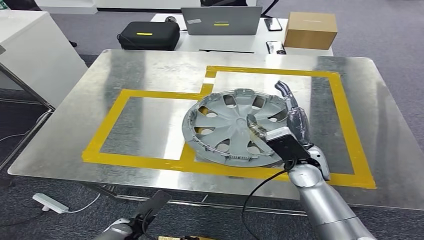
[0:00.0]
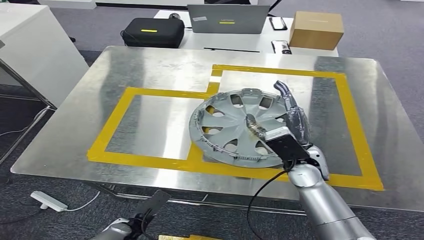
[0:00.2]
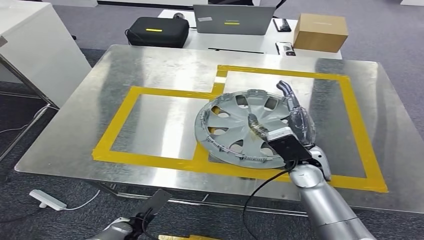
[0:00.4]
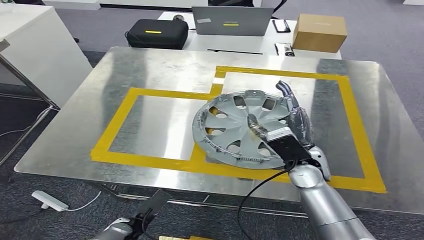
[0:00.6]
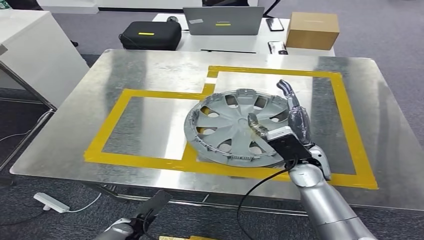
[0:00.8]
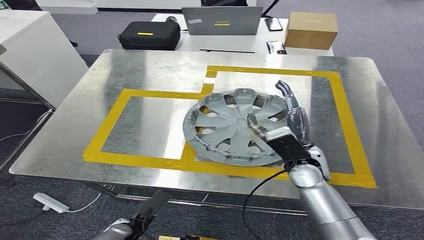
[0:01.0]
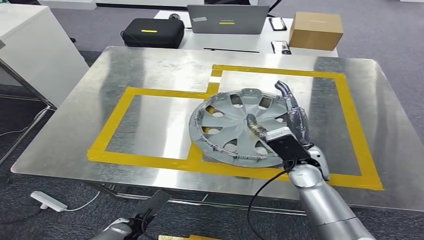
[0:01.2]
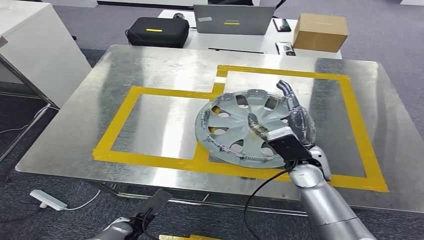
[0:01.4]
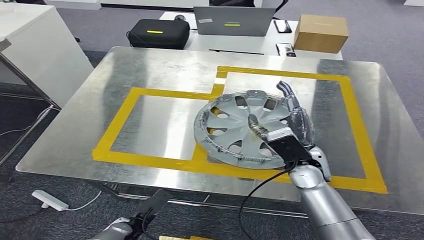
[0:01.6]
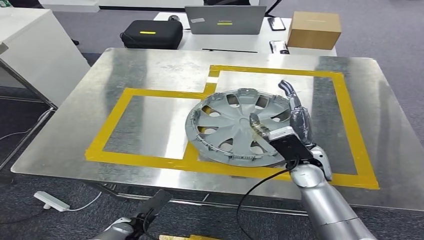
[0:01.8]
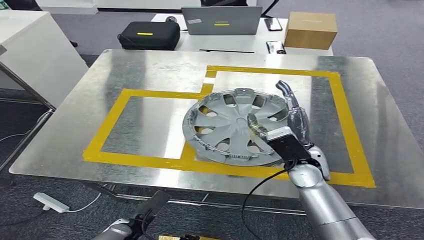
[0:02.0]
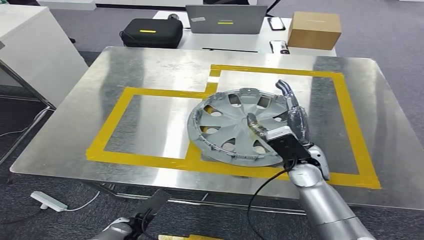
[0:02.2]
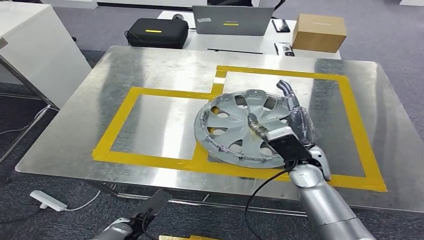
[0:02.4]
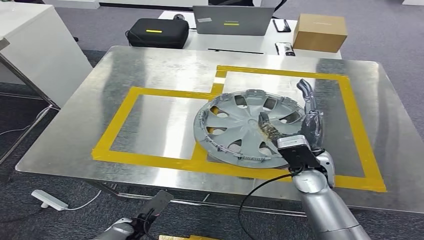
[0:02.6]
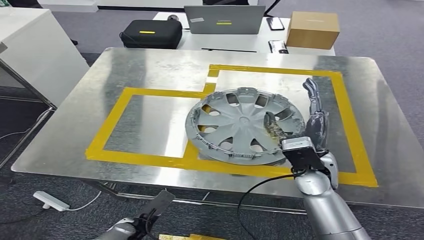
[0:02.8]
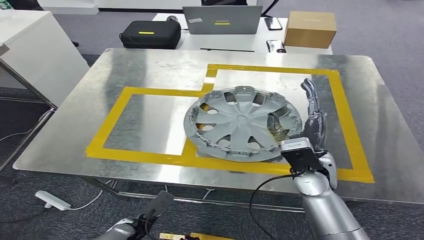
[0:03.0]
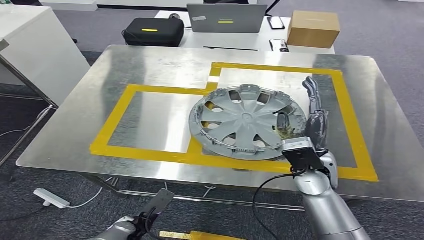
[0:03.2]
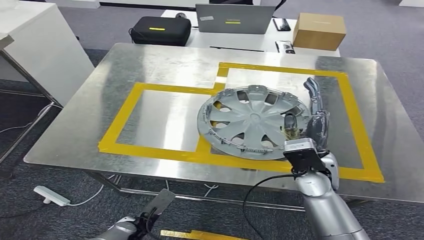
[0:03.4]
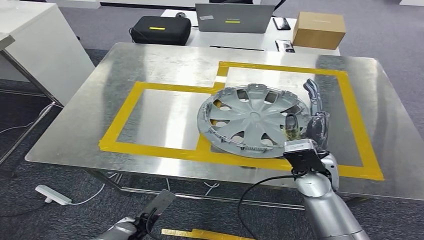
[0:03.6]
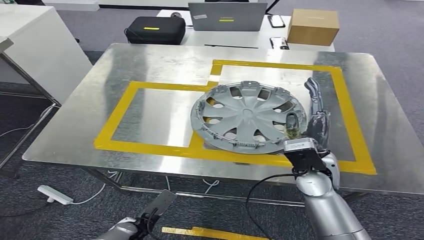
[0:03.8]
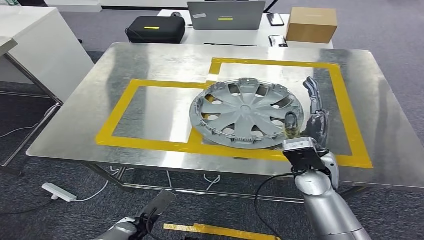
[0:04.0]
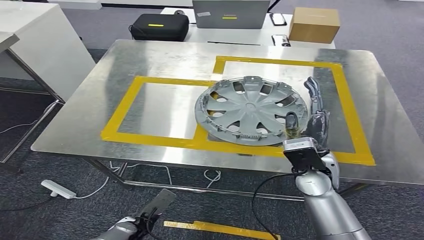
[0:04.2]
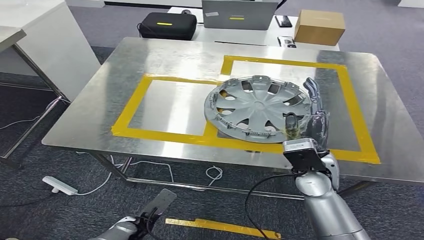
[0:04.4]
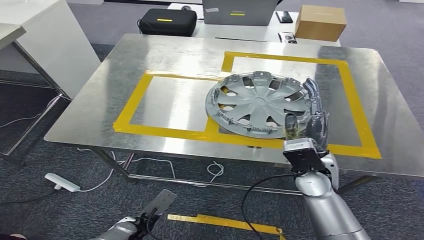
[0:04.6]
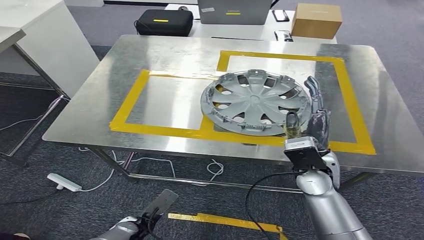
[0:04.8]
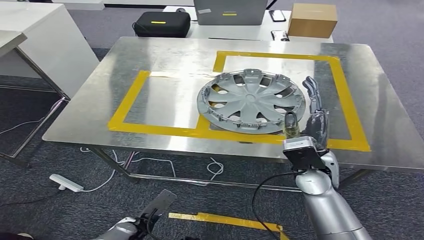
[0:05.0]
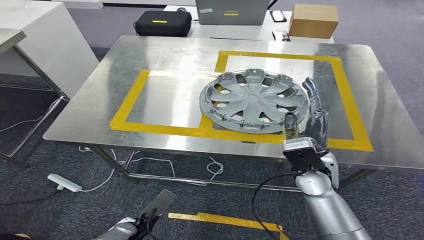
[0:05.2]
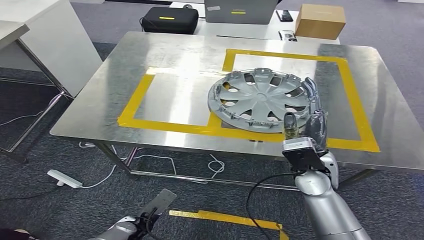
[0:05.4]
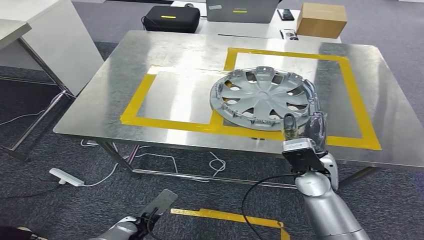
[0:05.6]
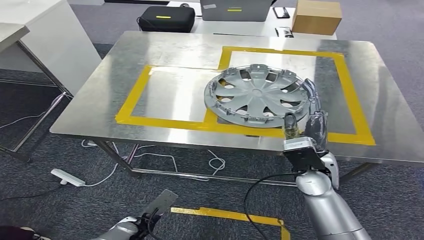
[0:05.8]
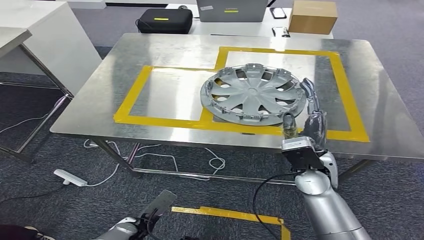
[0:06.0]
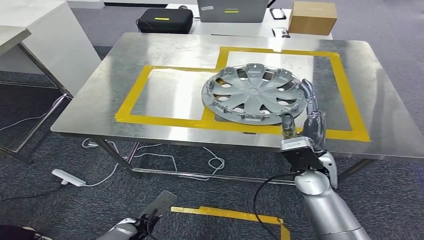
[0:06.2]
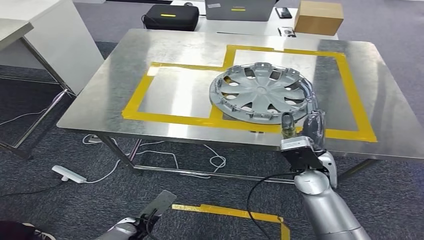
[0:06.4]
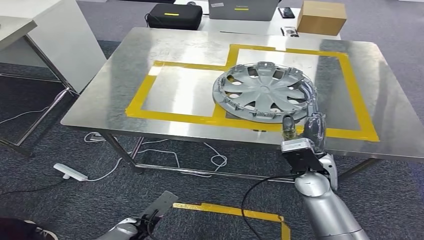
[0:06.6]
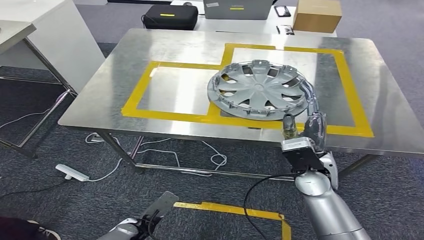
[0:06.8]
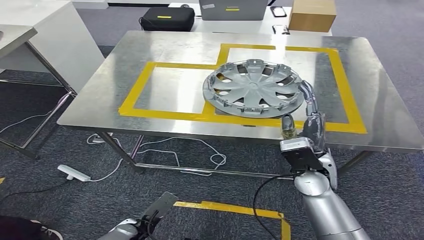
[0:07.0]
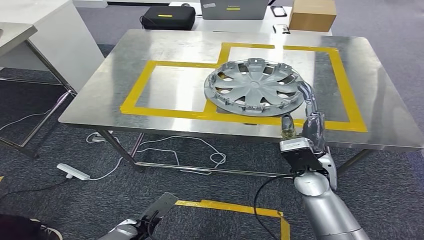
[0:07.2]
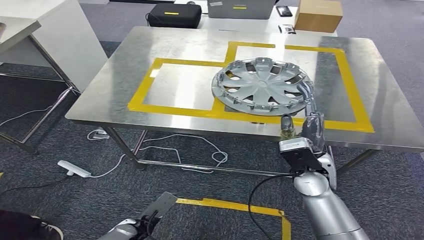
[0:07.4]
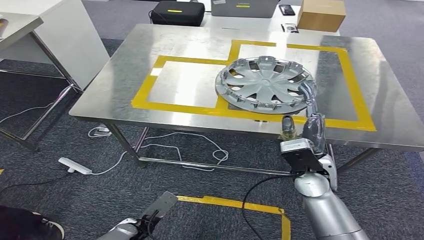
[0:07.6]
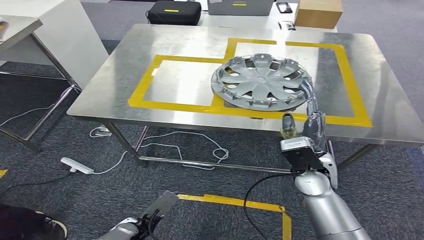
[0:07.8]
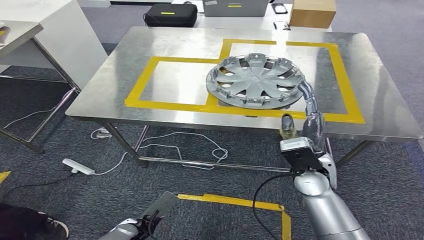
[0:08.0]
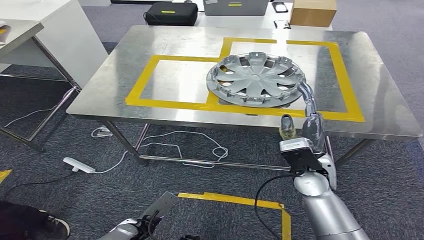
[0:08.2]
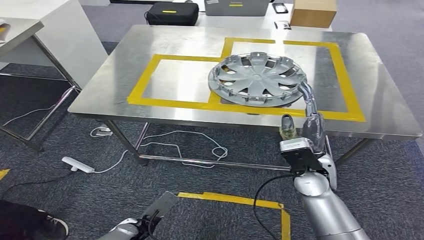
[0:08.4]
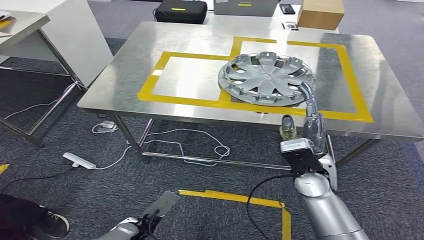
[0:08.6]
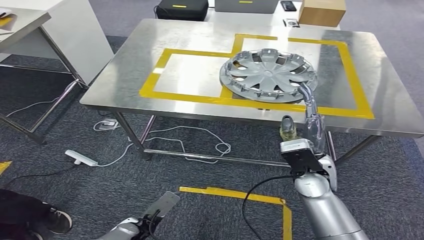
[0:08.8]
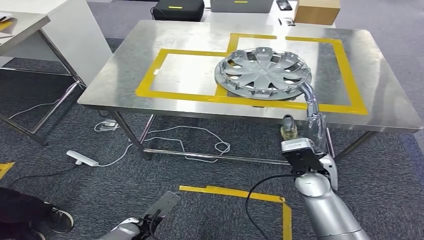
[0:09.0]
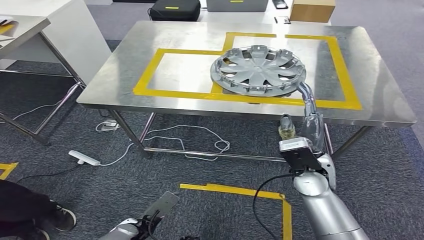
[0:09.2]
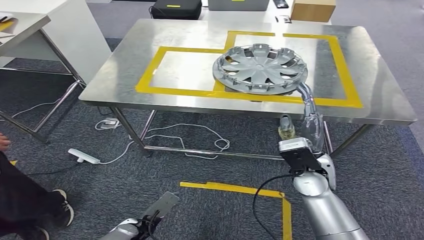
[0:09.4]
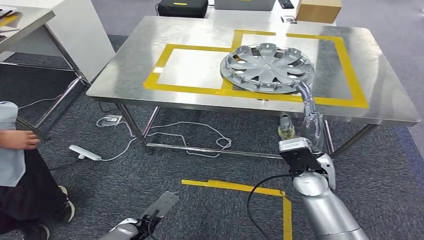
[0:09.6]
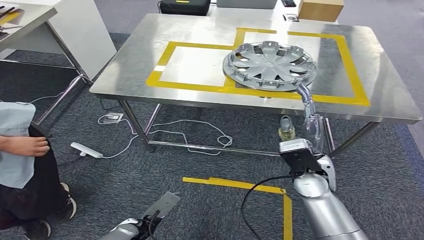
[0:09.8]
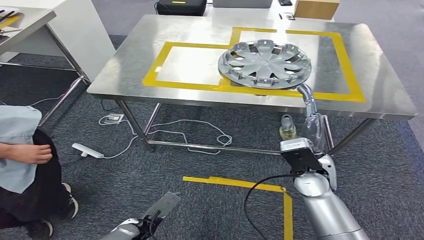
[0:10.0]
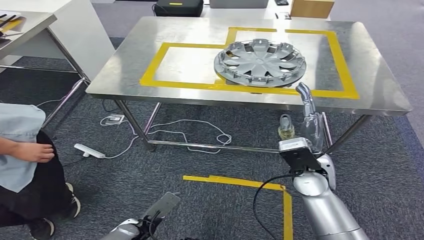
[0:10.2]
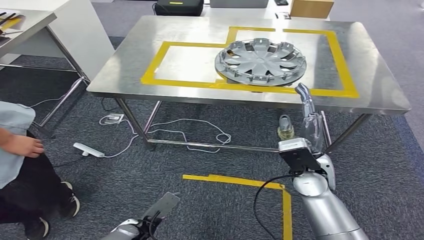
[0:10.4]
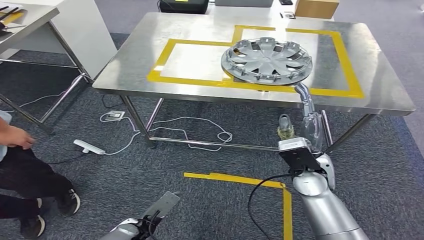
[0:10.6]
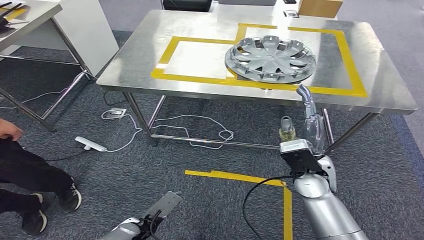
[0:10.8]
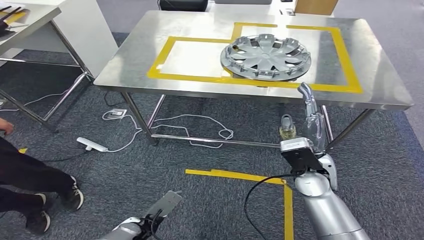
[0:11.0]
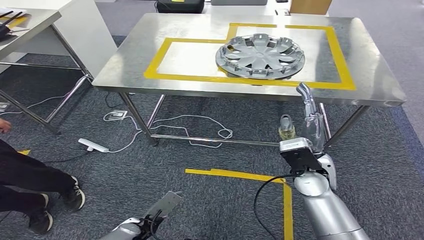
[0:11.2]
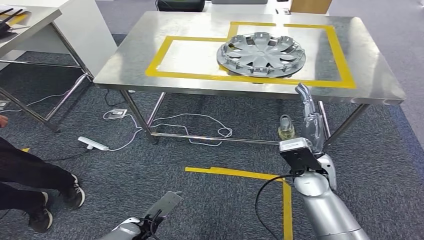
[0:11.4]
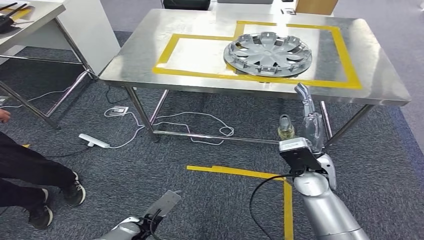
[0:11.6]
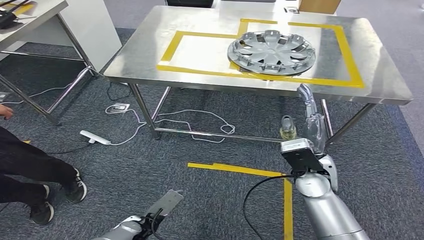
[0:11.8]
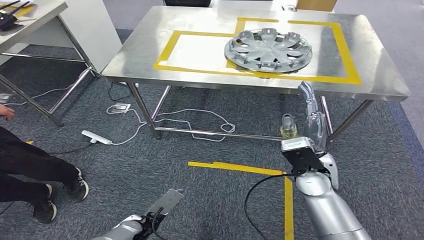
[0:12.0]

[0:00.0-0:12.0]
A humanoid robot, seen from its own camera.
Step, 0:00.0 to 0:02.0: Insert the small parts into the corresponding holes on the workbench.

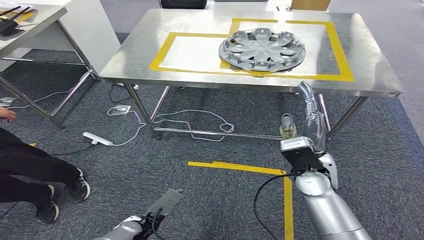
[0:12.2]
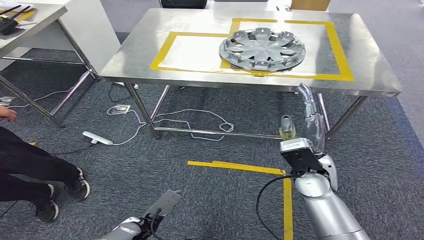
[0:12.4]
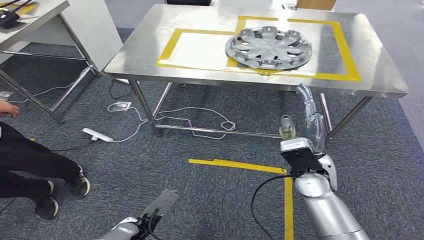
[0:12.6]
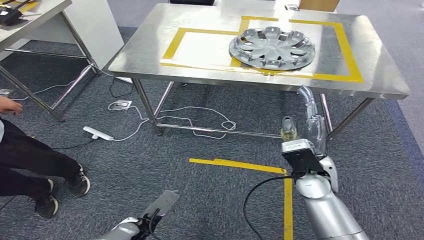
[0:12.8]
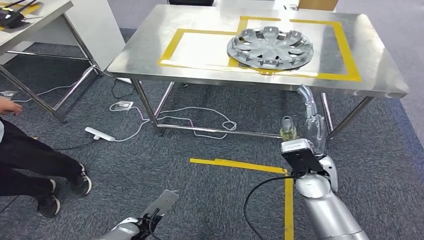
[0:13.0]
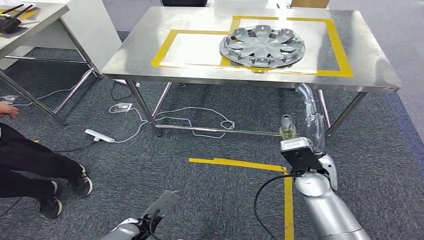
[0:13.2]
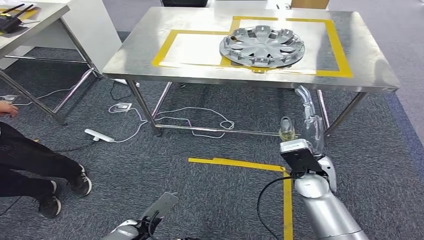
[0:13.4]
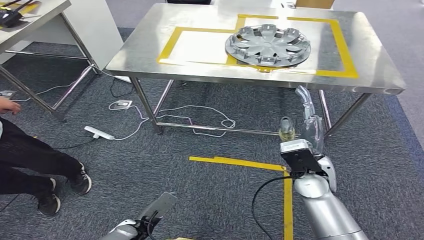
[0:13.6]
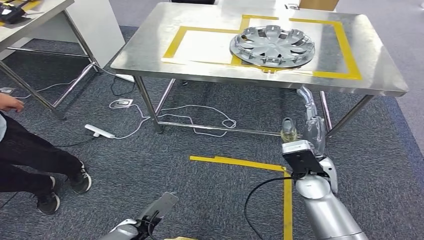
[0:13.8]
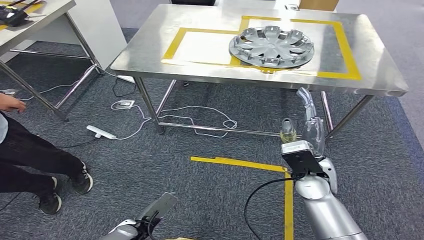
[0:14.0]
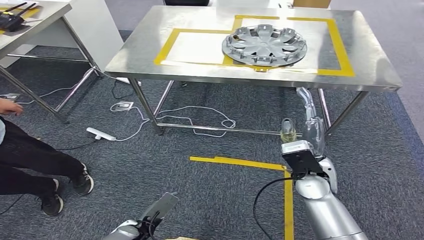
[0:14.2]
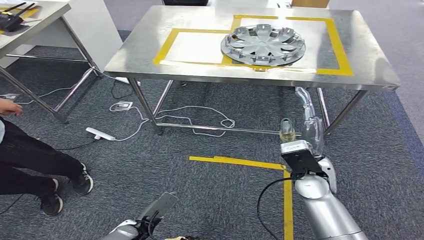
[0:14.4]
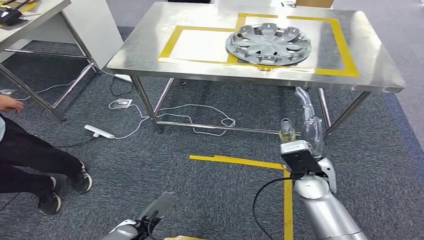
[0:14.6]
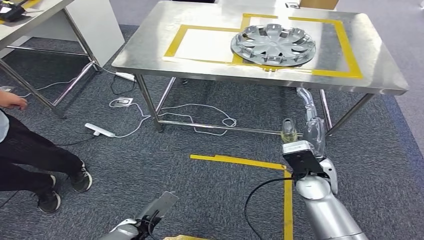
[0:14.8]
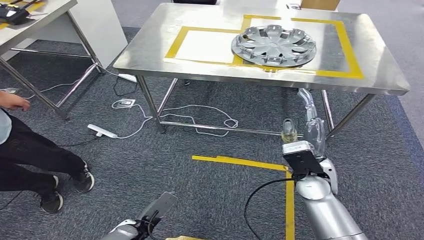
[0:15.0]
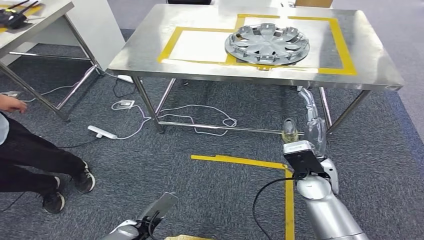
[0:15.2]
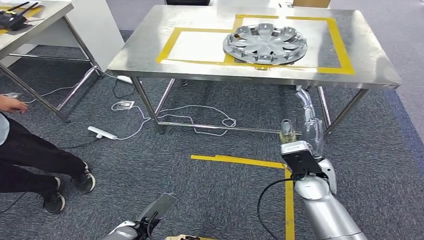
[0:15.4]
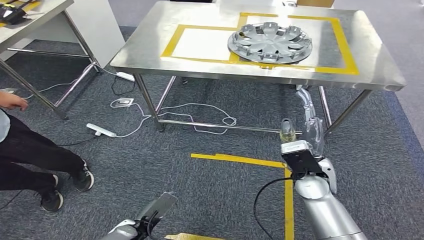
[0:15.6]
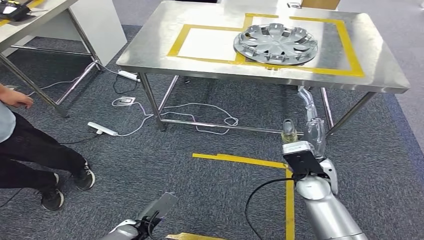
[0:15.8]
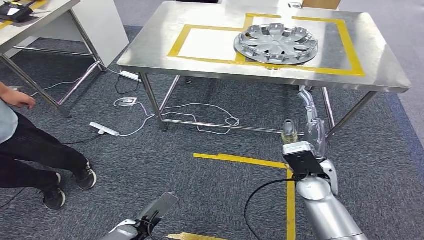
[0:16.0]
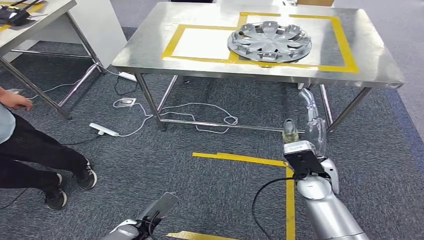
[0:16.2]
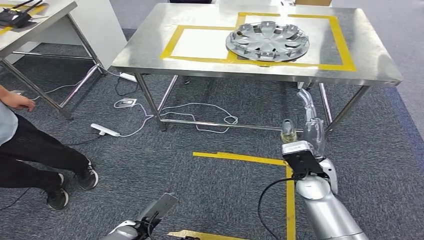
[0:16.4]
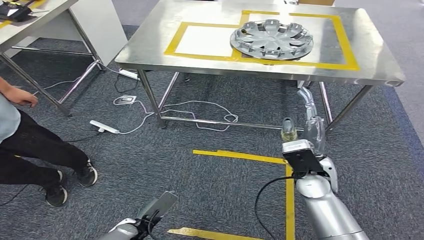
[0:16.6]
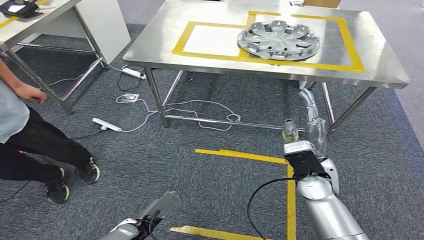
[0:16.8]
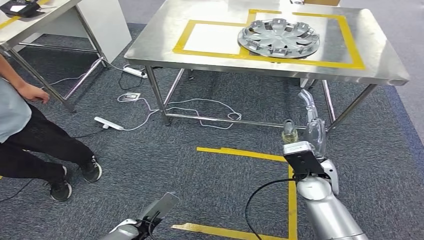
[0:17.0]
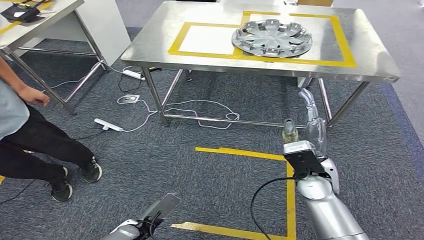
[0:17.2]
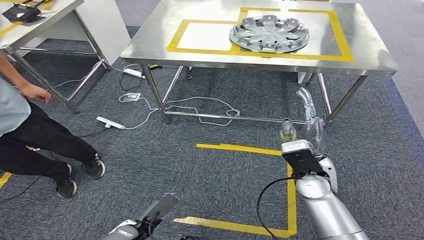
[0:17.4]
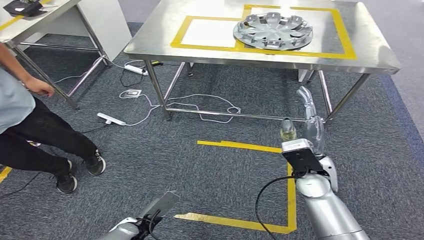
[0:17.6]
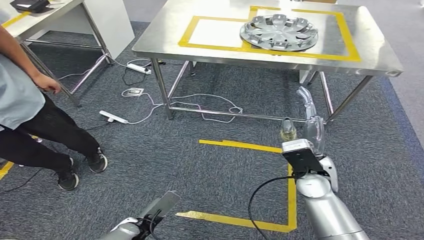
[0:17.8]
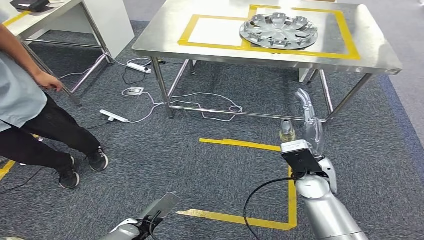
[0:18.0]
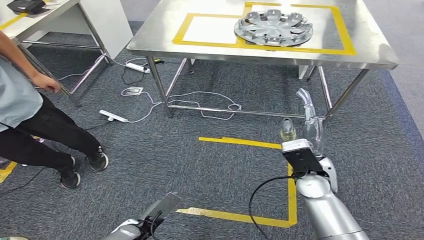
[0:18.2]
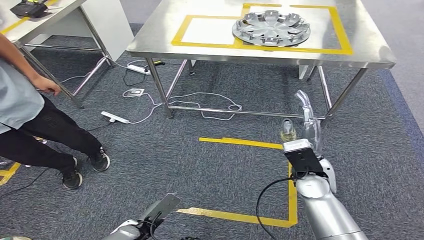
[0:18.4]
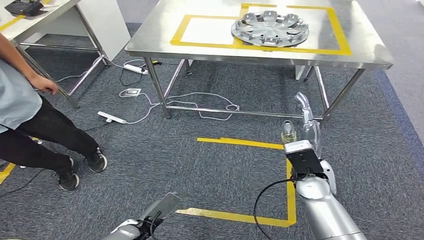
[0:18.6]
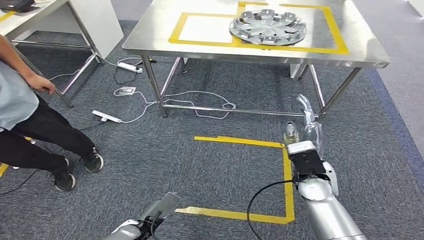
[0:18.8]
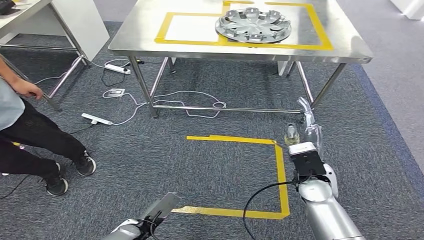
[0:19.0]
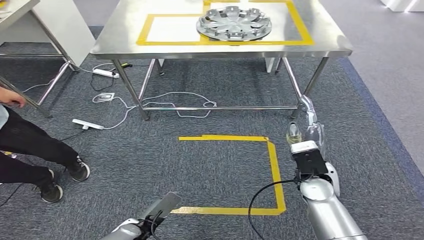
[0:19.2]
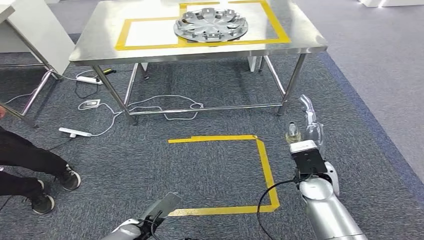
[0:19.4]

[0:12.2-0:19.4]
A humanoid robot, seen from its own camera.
0:13.6 to 0:15.0: Neither hand changes place.
